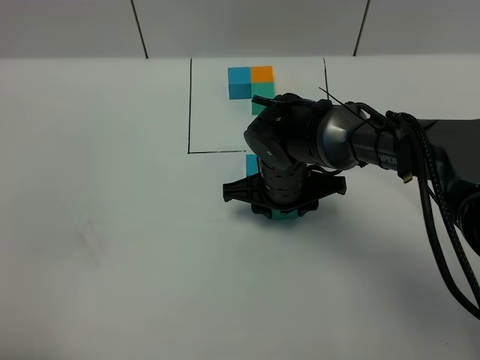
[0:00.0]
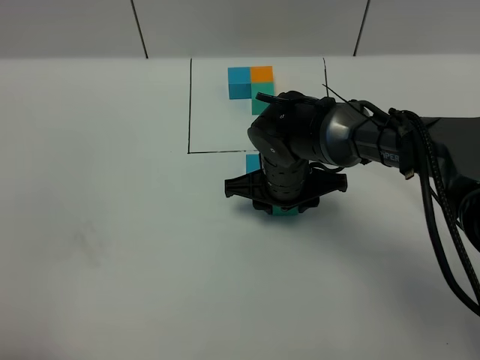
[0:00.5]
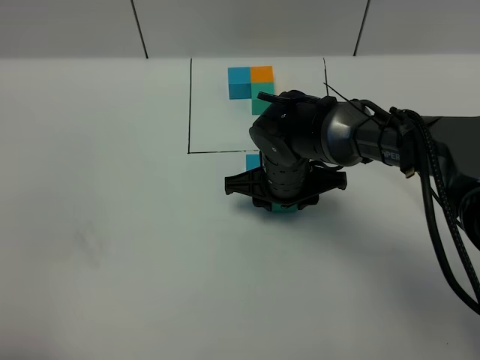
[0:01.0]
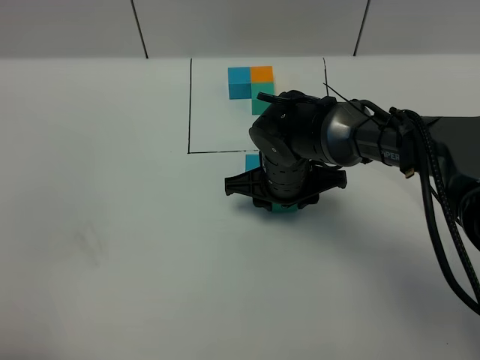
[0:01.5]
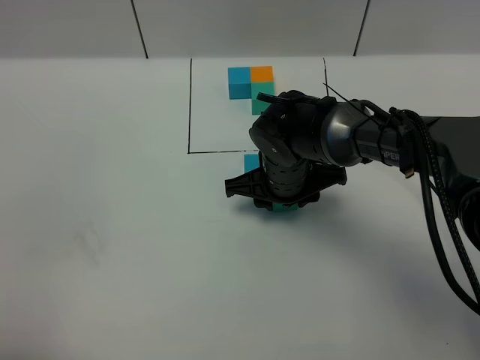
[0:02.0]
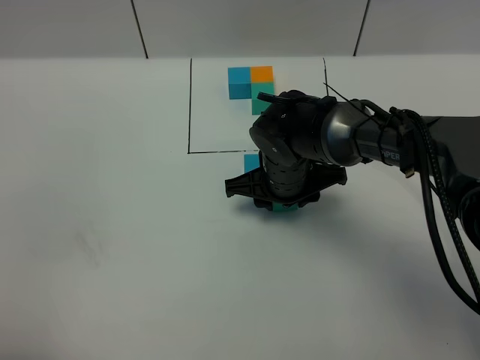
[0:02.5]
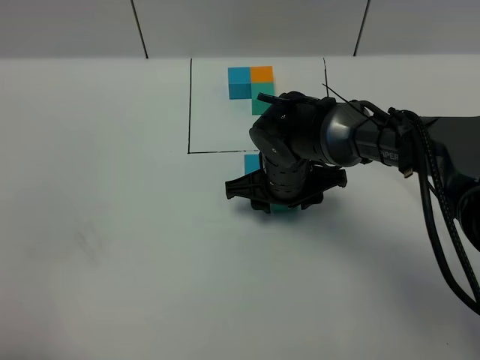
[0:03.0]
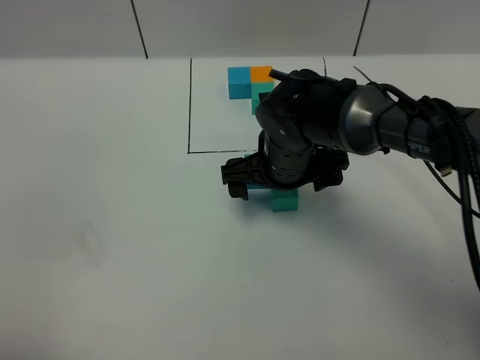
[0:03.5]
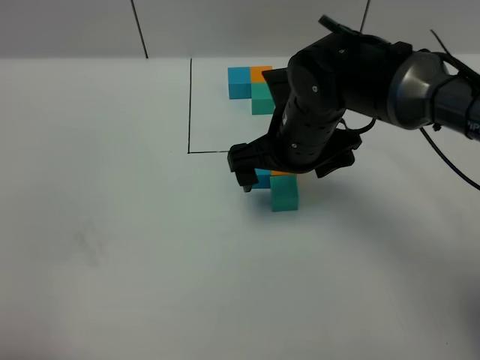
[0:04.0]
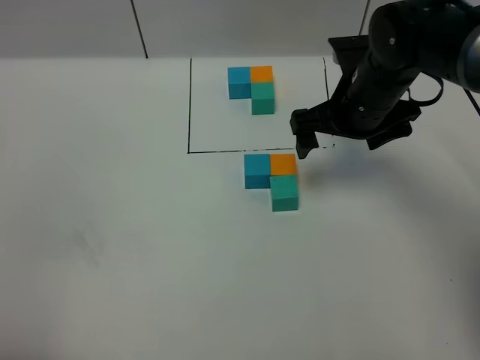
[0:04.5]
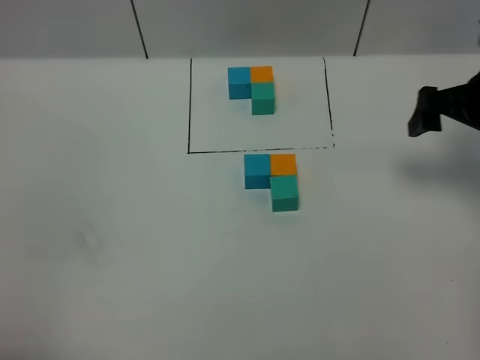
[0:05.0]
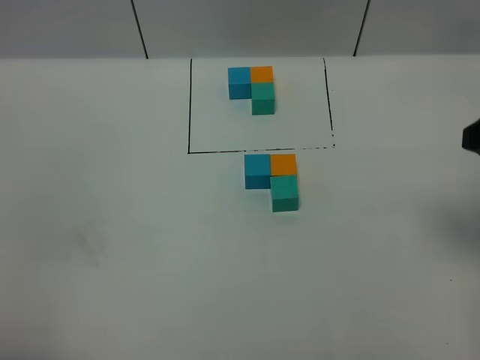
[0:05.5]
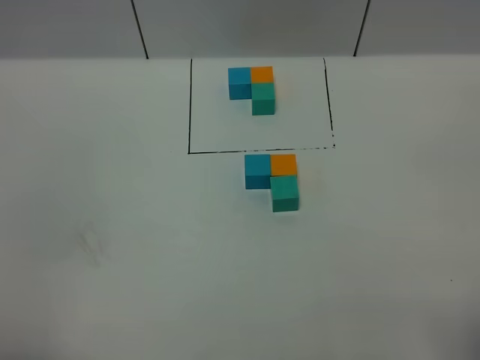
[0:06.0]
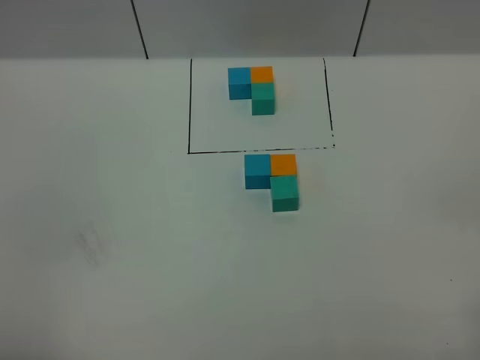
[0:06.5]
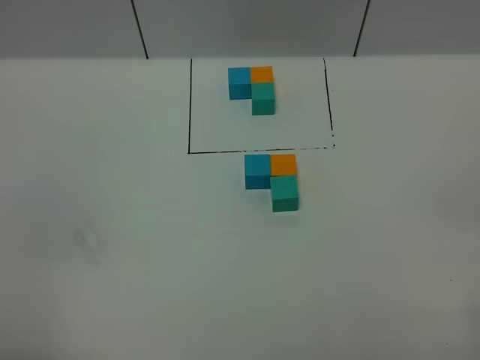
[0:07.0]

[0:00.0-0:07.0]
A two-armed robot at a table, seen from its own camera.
Task of the whole recording: According to the building block template in front, assemble the scattered blocks together.
Step, 0:00.0 to 0:03.0: Put the green build block on the behind of the orange build block.
0:00.0 to 0:02.0: Both grippers stay put.
0:02.0 to 0:03.5: The right gripper opens up.
0:03.5 to 0:05.0: The right gripper travels to the right by roughly 25 cm.
0:05.0 to 0:07.0: The right gripper goes approximately 35 cm backward.

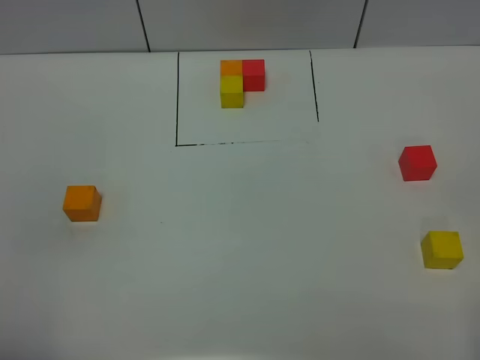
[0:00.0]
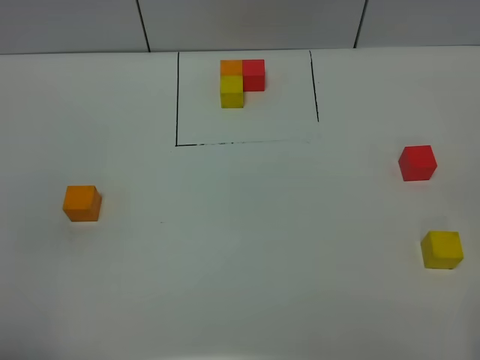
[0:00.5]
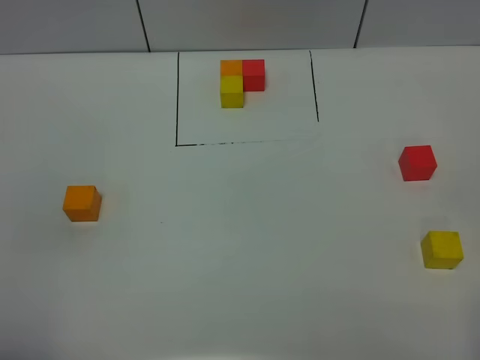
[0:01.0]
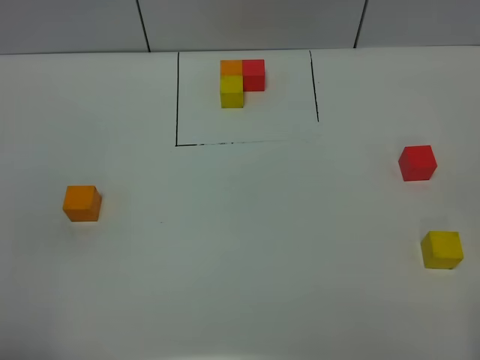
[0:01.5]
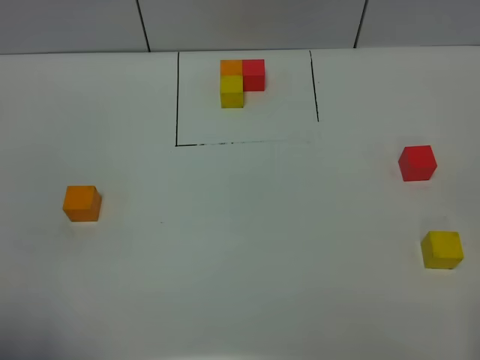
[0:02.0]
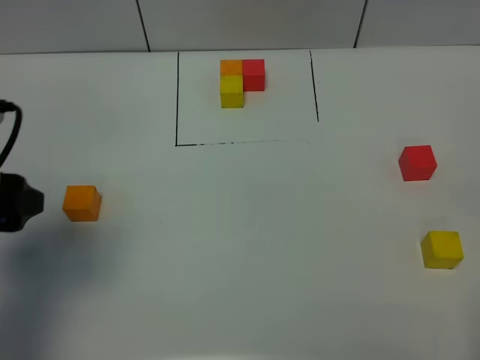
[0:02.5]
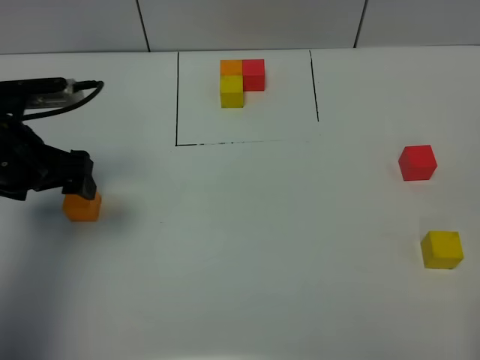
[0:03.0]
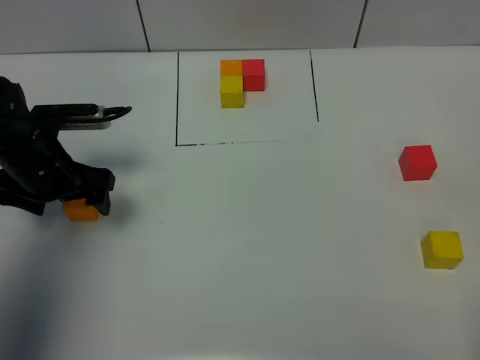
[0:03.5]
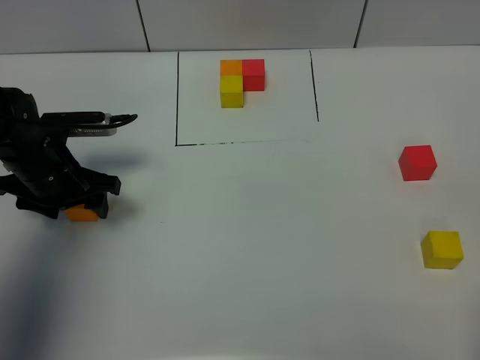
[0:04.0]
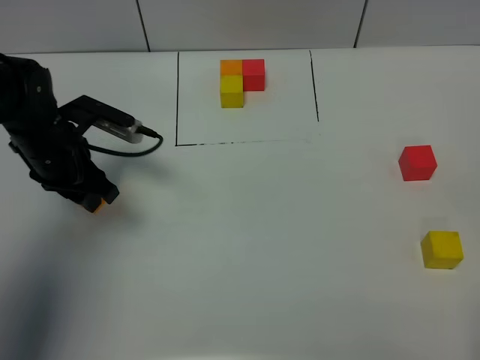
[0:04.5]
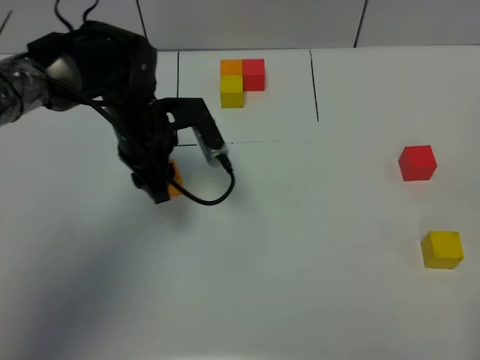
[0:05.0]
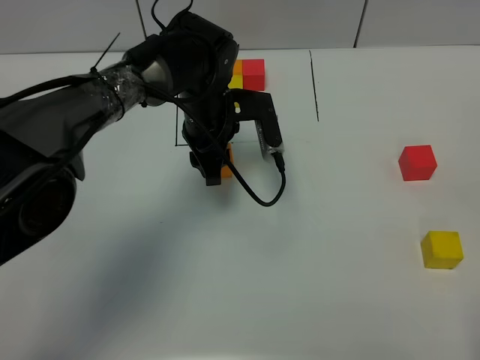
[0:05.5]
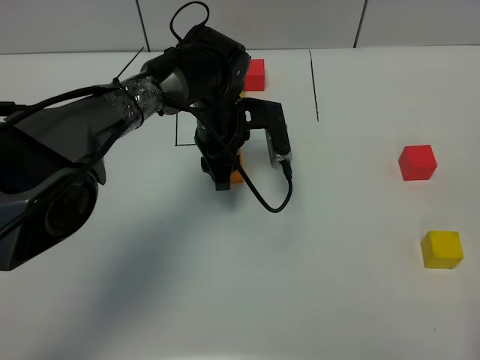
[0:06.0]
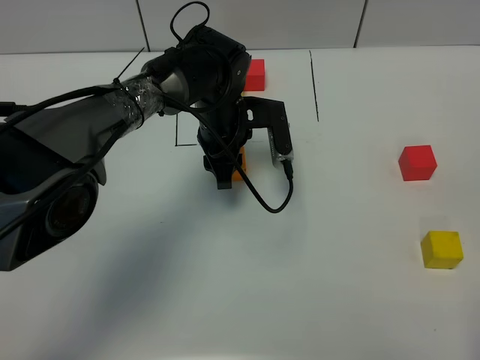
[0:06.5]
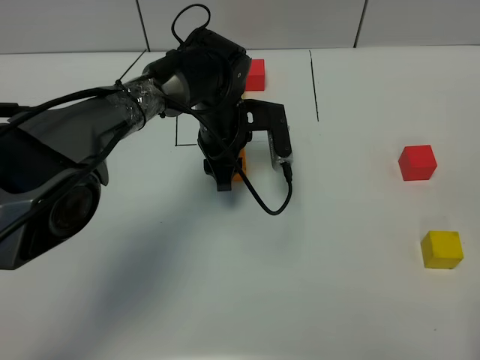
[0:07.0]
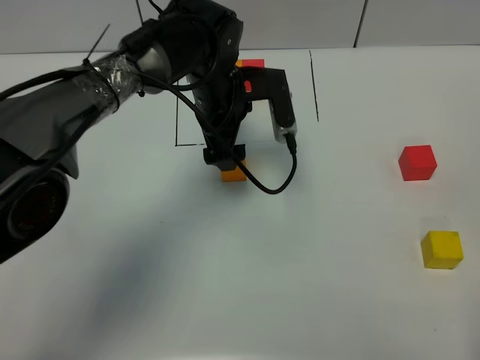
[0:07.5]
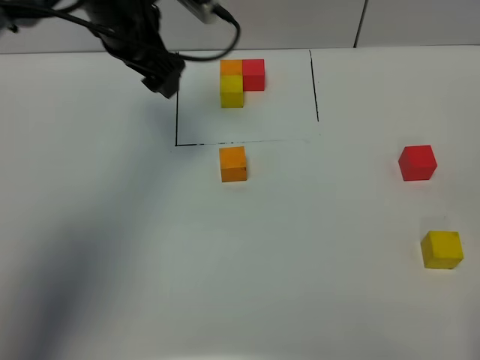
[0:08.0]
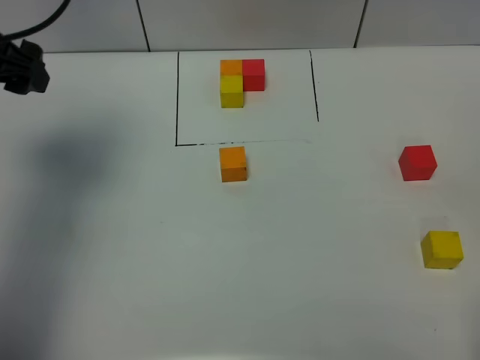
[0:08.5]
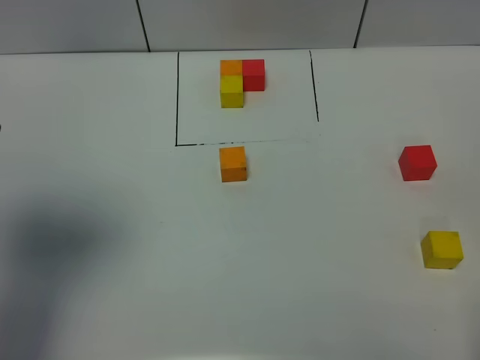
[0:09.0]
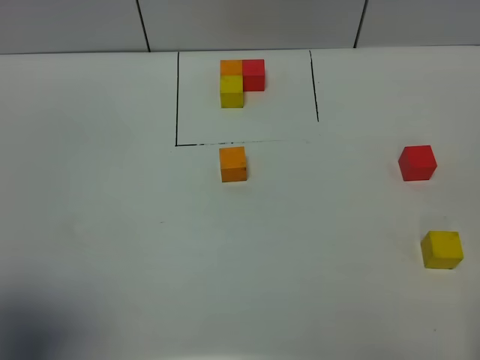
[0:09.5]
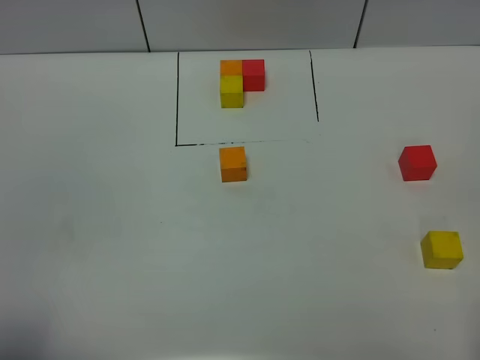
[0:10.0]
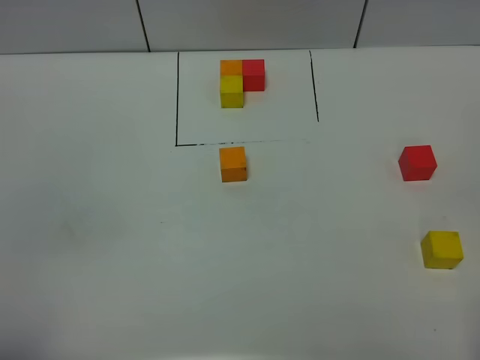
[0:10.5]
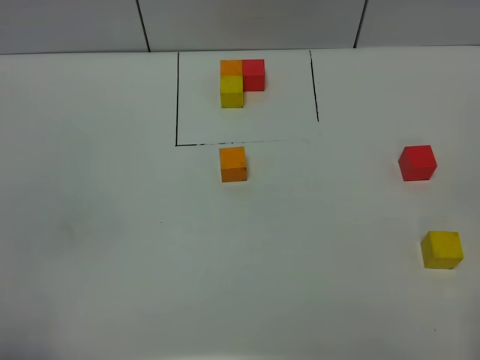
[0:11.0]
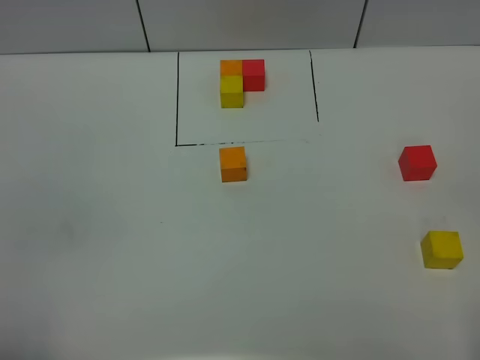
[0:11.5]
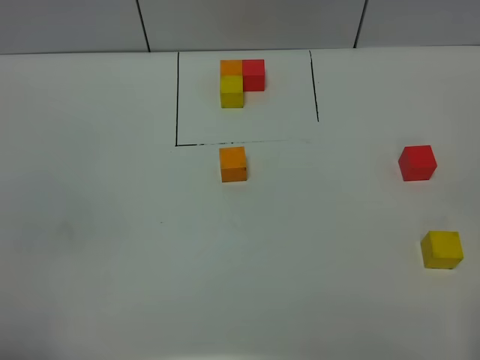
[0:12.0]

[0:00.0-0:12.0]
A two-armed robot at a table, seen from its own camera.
Task of the whole recording: According to the building block template in front, assemble the scattered blocks together.
Step, 0:00.0 to 0:07.0: Put the orange build block in the center of the table.
0:02.0 to 0:04.0: The left gripper goes some 35 cm forward and downward, and closes its fingers.
0:04.0 to 0:06.0: The left gripper heads to the right, covering some 20 cm, and closes up.
0:06.0 to 0:08.0: The left gripper moves upward and to the left, approximately 20 cm, and opens up.
0:08.0 to 0:10.0: The left gripper is displaced backward by some 40 cm.

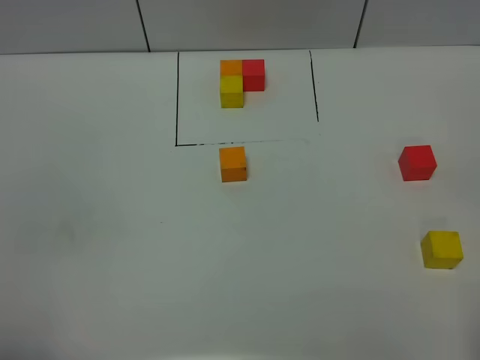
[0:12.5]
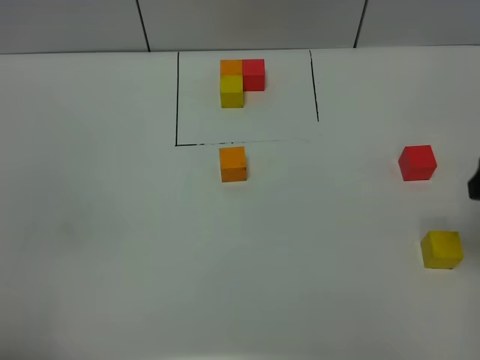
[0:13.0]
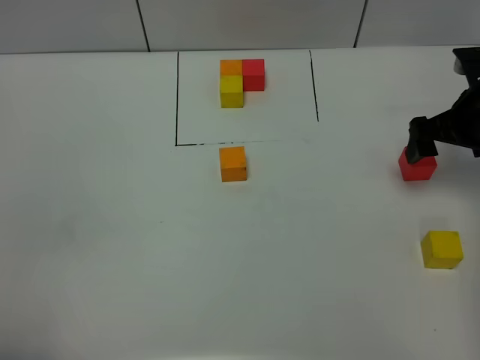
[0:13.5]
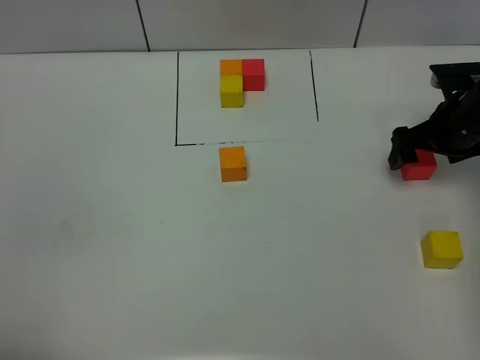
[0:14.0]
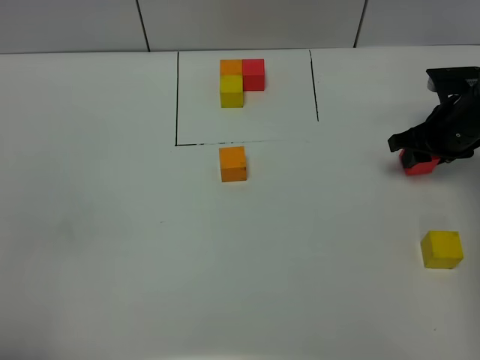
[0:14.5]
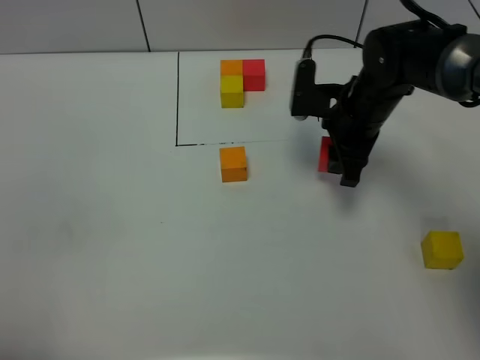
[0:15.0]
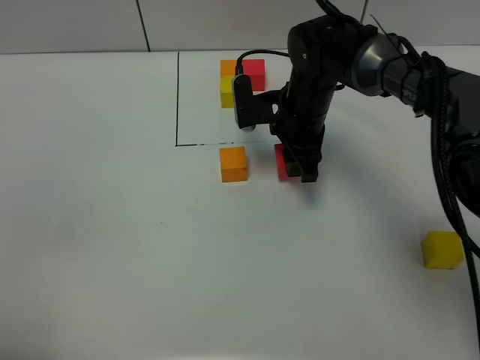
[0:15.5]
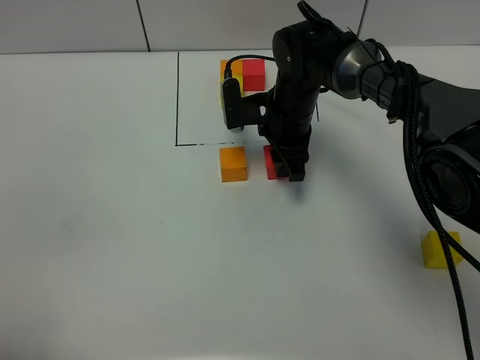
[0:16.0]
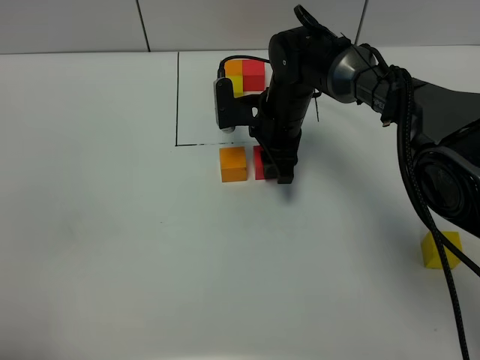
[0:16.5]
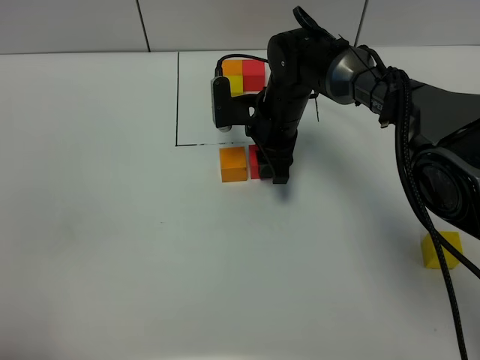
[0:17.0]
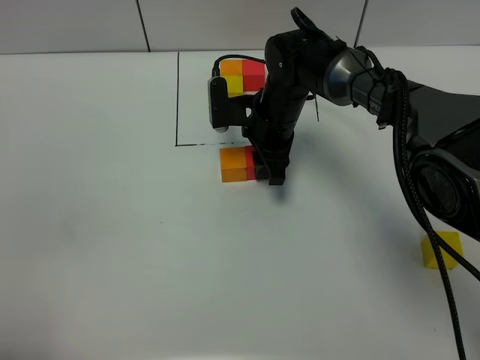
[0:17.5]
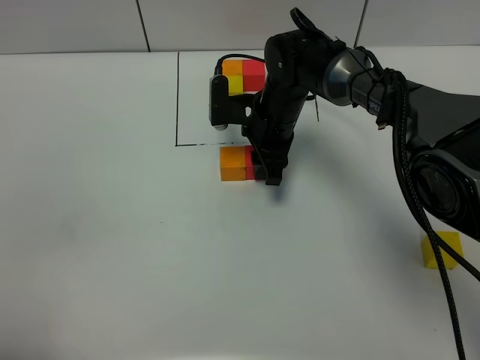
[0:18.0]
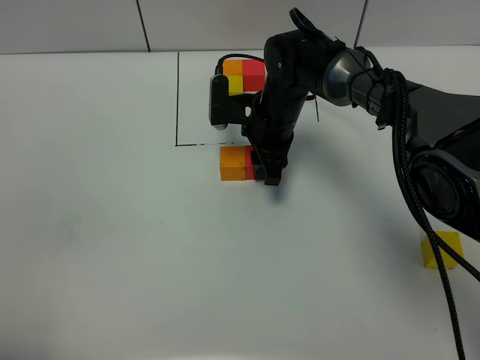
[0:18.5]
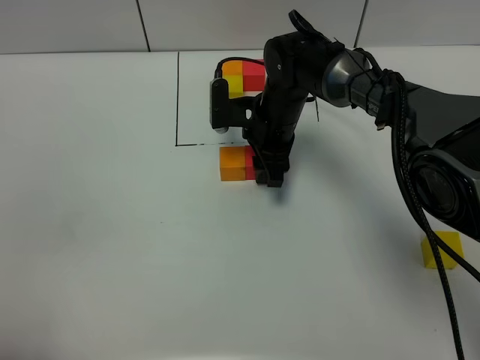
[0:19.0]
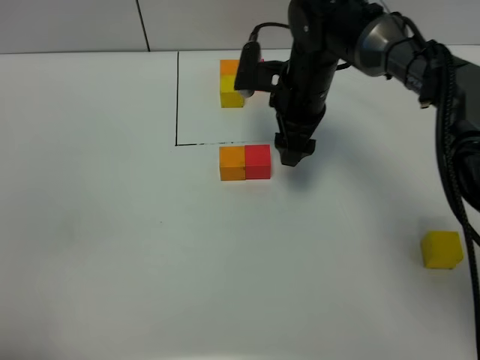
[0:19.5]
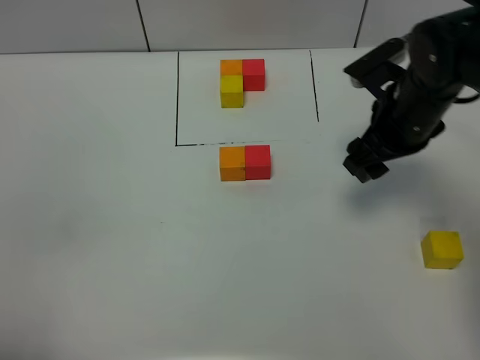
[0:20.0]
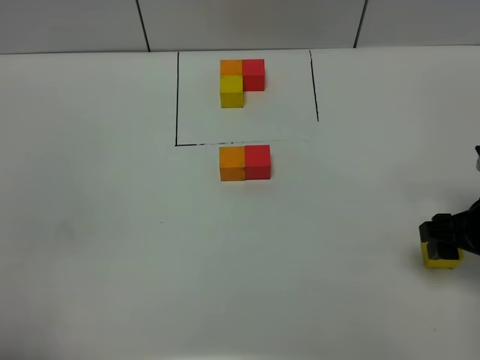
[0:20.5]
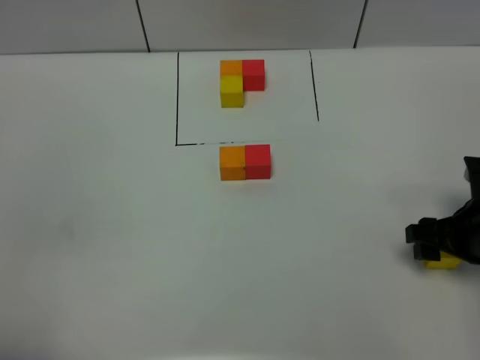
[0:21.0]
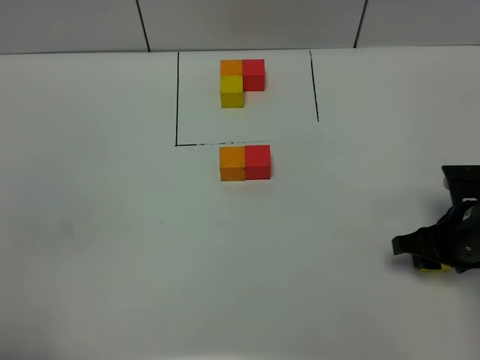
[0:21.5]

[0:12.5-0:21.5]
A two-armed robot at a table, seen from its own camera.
Task of the whole recording: According to the building block template in front, assemble the scattered blocks together.
Step, 0:12.5 to 0:19.0: Put the red build block on the right of the orange build block.
0:12.5 to 0:14.5: The right gripper shifts some 40 cm forward and downward, and closes its fingers.
0:14.5 to 0:17.0: The right gripper travels to the left by about 25 cm.
0:17.0 to 0:19.5: The right gripper goes roughly 5 cm upward, and opens up.
0:19.5 to 0:21.5: The right gripper shifts approximately 25 cm backward and to the right, and closes.
